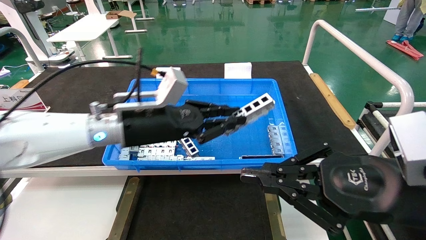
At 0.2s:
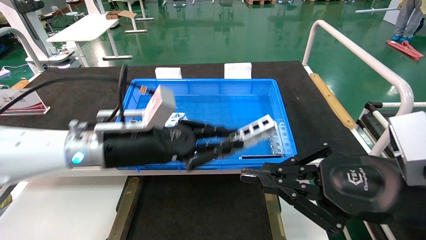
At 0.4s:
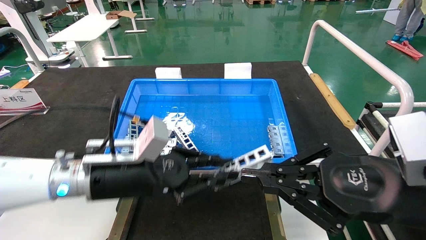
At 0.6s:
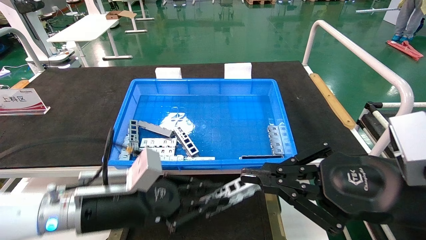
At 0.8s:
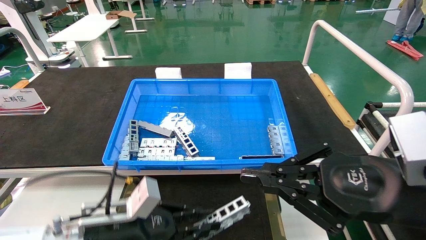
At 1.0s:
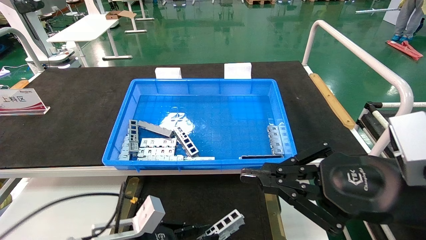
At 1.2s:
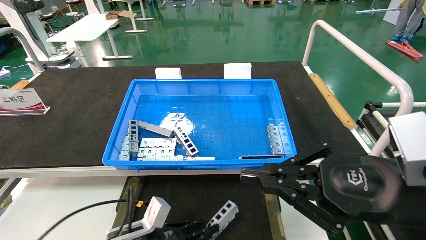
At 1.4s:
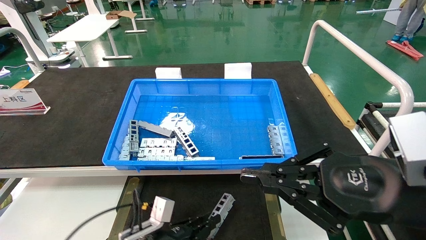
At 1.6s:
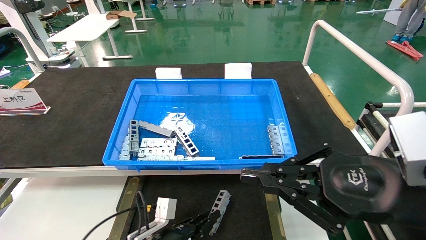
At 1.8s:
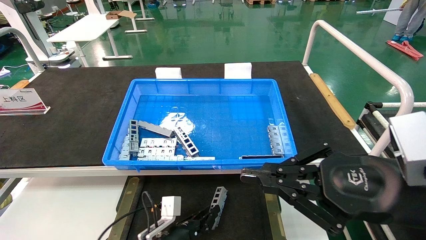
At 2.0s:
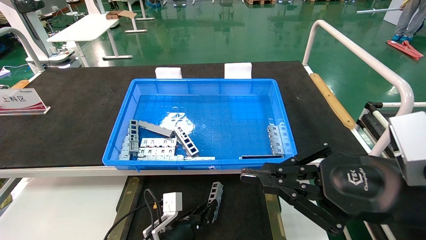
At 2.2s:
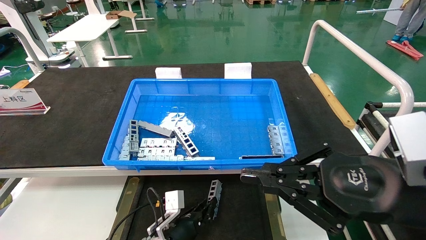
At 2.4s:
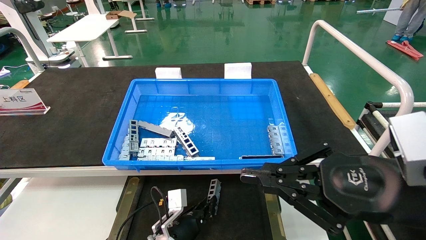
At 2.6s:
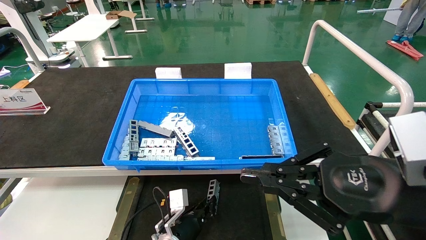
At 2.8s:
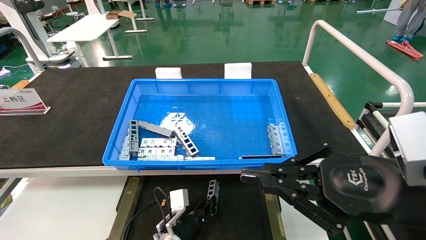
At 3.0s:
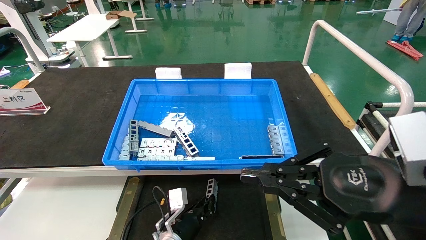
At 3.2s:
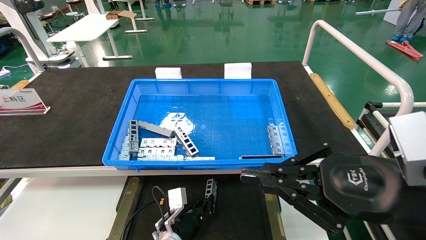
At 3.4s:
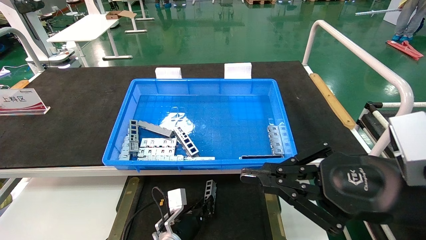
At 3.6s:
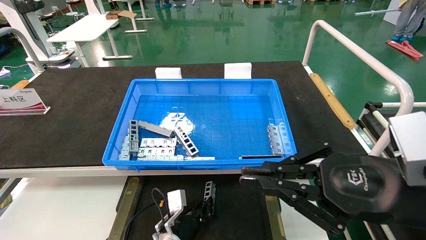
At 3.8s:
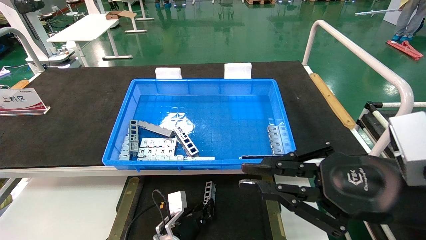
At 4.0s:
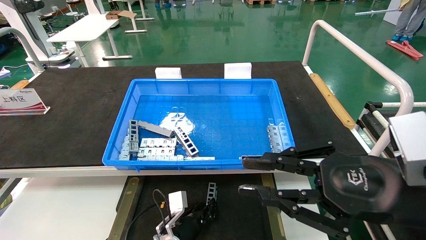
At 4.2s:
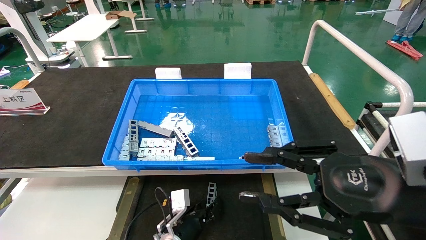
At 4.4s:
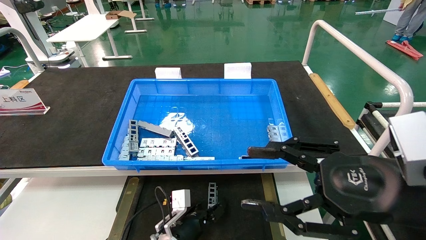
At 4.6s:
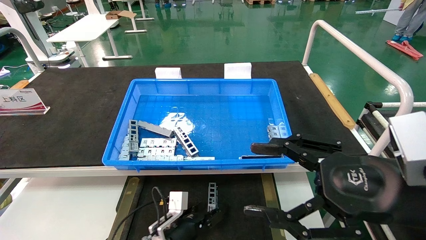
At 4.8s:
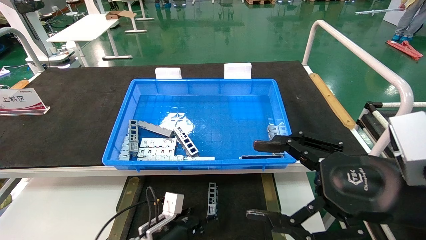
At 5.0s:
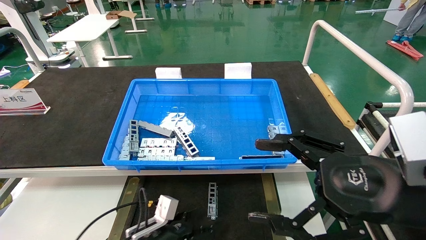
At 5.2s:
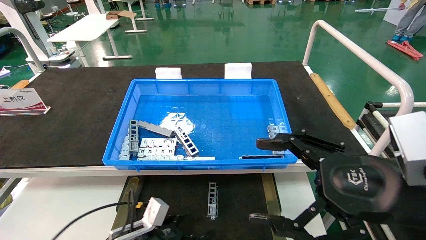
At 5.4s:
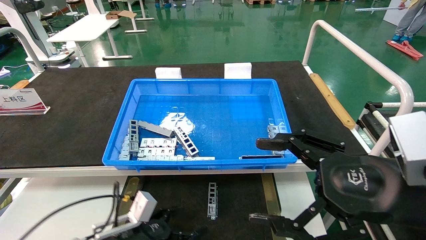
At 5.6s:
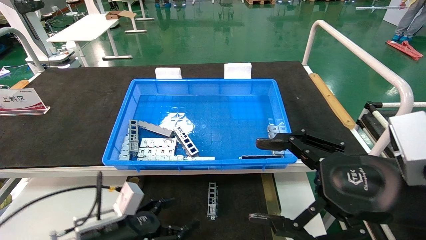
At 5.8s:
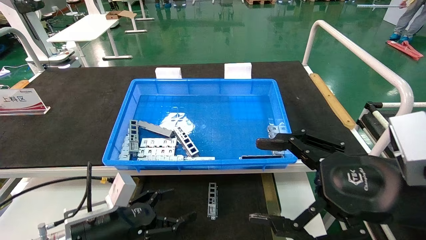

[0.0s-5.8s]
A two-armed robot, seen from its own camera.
Task of the whole recording: Grasp the part with one hand and place it on the black container.
Step, 0.0s to 4.0s: Place the front USB bracket into the box.
0.0s to 1.4s: The left gripper is displaced downward by about 25 cm.
1.4s to 2.8s: The left gripper moves forward, to the right and downward, some 10 cm.
2.8s to 4.4s: The right gripper opens. The left gripper opens its fingers.
4.4s to 5.8s: The left gripper heads to the left, upward and backward, covering some 20 cm, and opens up. Meanwhile the right gripper opens its fingers.
